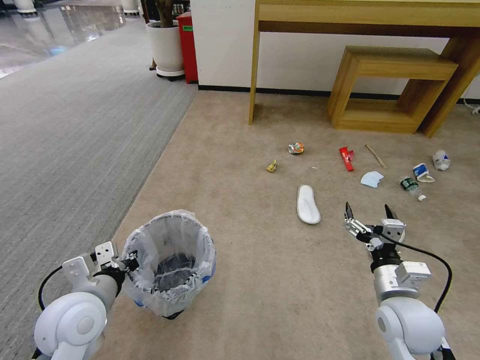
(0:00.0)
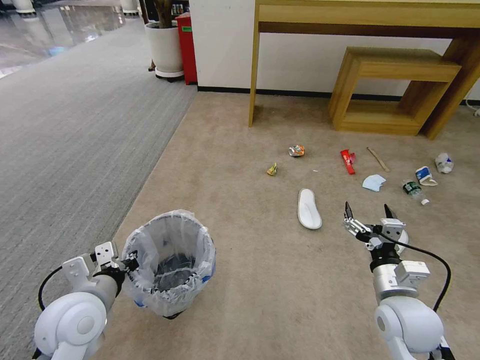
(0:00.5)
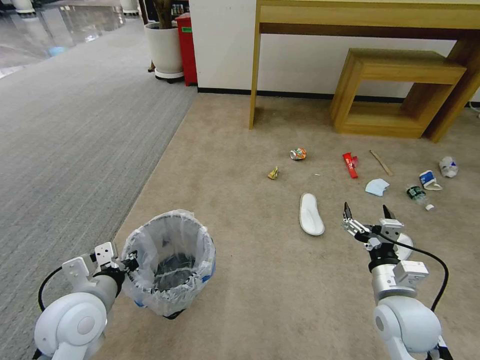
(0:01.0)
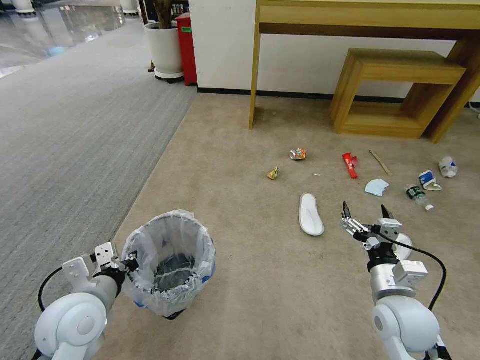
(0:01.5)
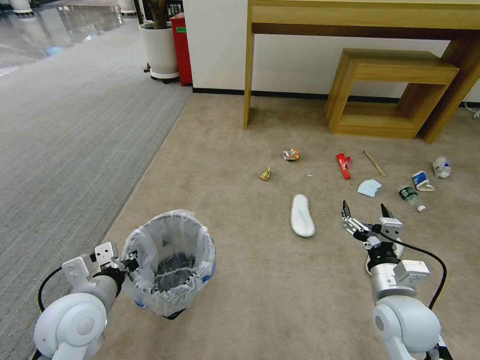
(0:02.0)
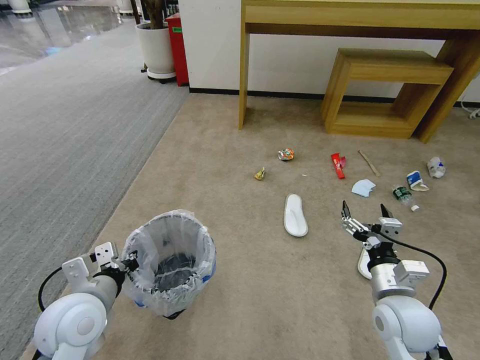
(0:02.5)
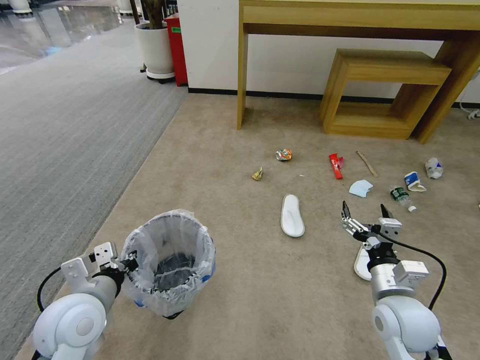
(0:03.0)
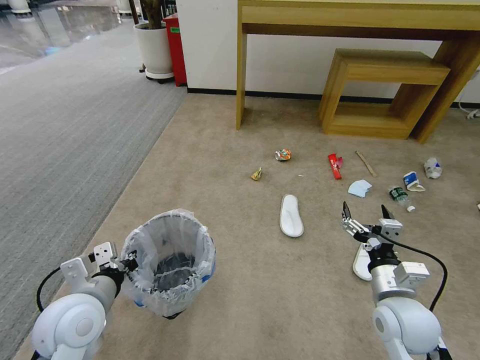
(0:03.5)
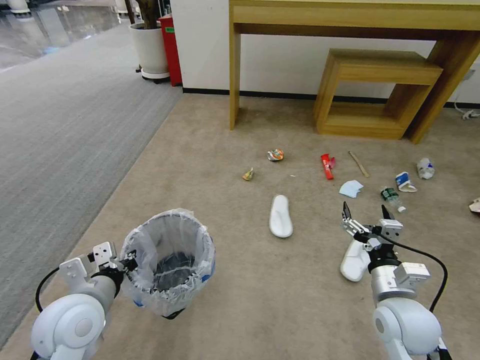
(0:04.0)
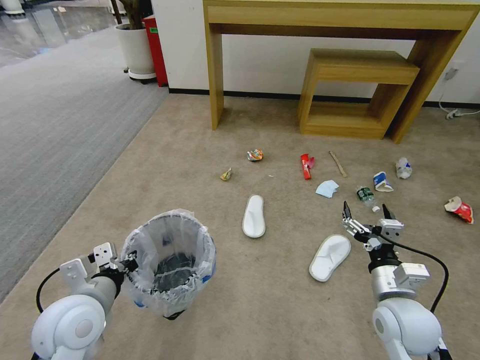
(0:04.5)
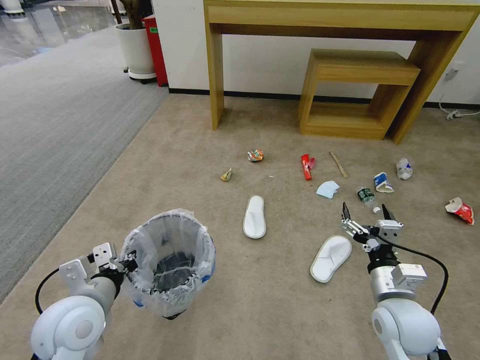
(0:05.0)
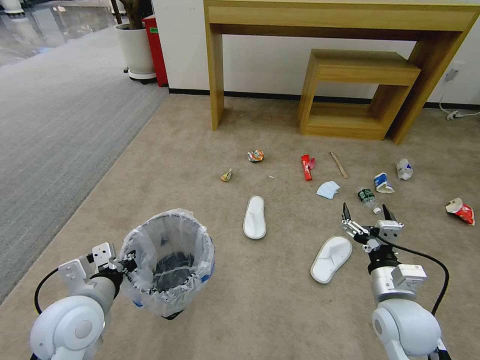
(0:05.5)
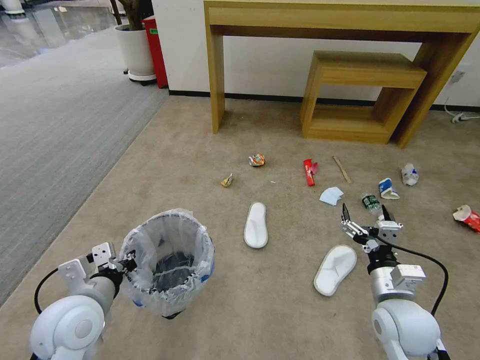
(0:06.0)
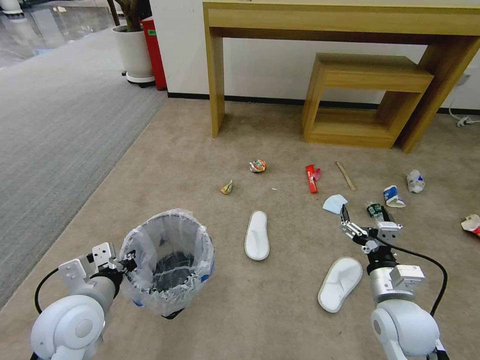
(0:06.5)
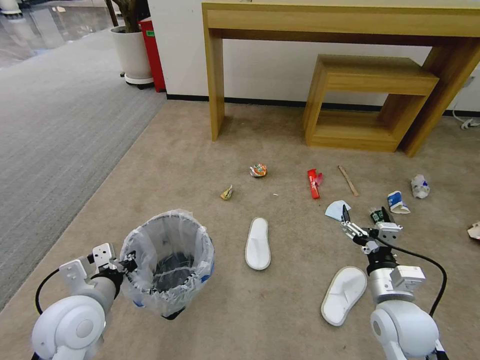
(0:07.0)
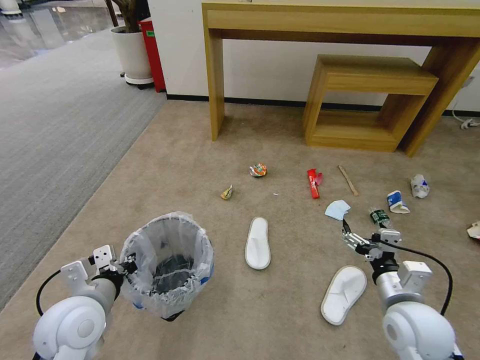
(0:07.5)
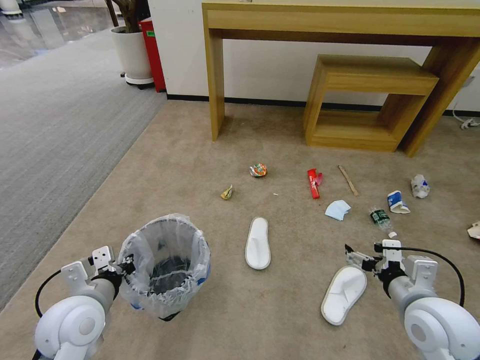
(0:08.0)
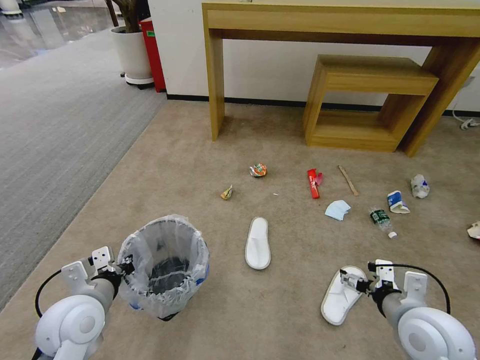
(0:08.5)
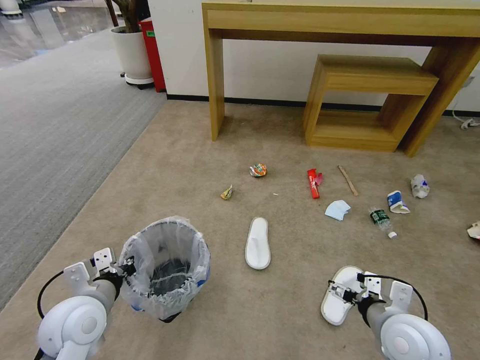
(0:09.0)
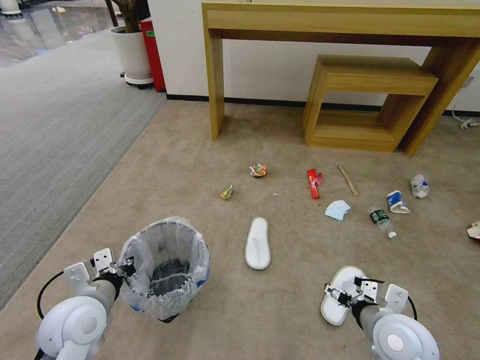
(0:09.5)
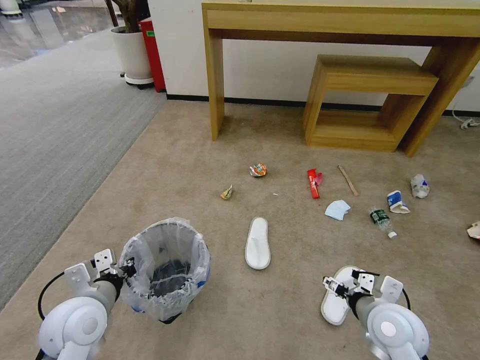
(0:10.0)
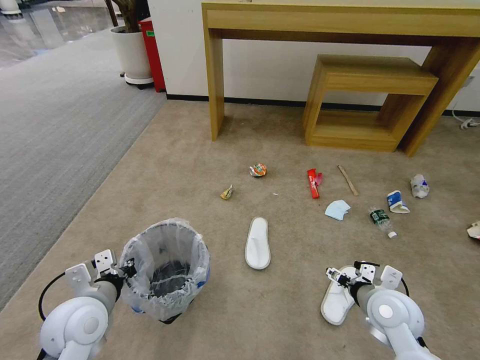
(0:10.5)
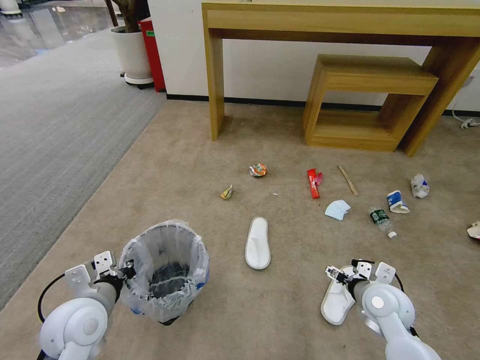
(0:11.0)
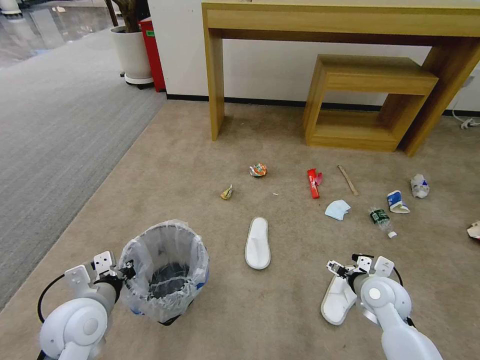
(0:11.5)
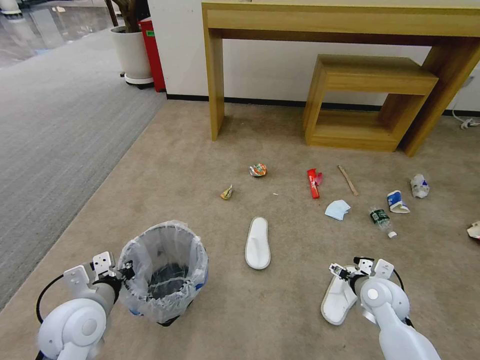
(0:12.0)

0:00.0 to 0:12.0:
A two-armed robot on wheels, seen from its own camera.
Task of the whole recording: Pick up the trash bin and place the garbage on the floor into it.
0:00.0 to 0:06.0: Both grippers stay about where they are.
0:06.0 to 0:08.0: The right gripper shifts roughly 5 cm upward.
0:08.0 to 0:10.0: The right gripper is displaced downward by approximately 5 cm.
0:10.0 to 0:12.0: The right gripper goes about 10 cm forward and downward.

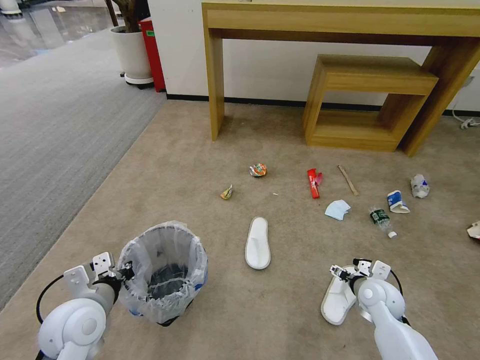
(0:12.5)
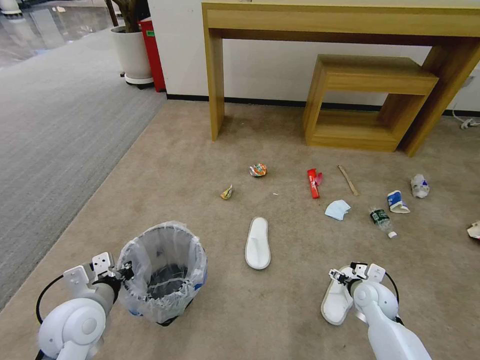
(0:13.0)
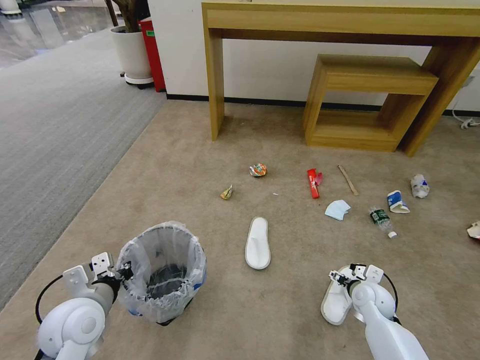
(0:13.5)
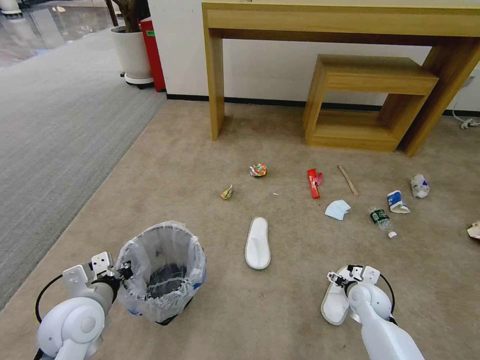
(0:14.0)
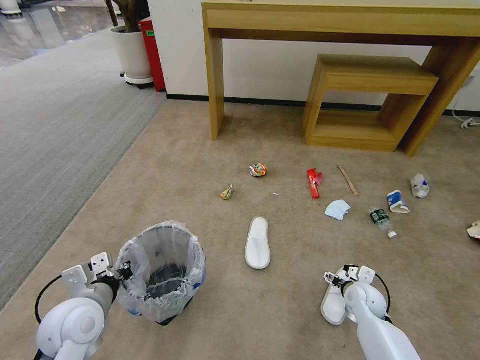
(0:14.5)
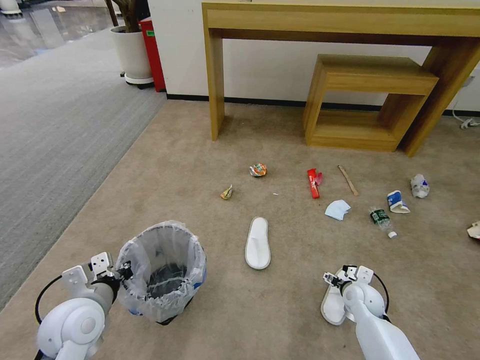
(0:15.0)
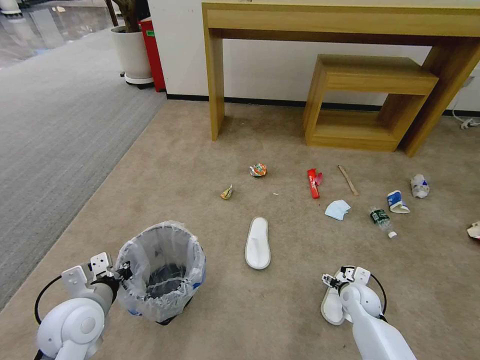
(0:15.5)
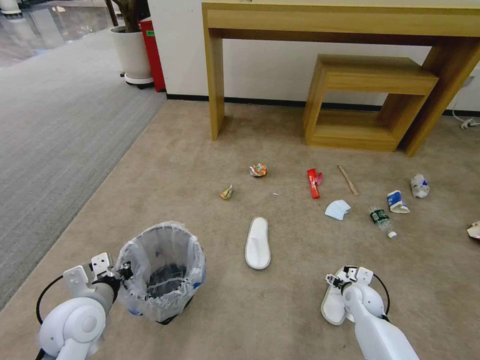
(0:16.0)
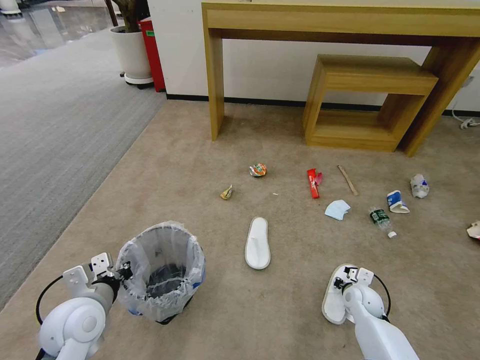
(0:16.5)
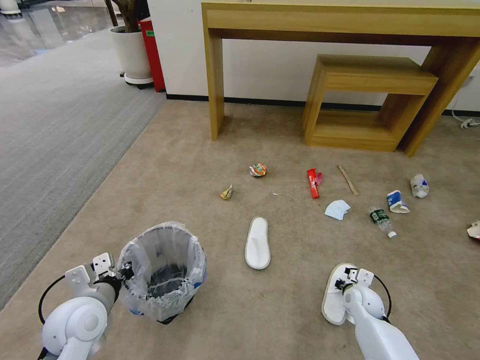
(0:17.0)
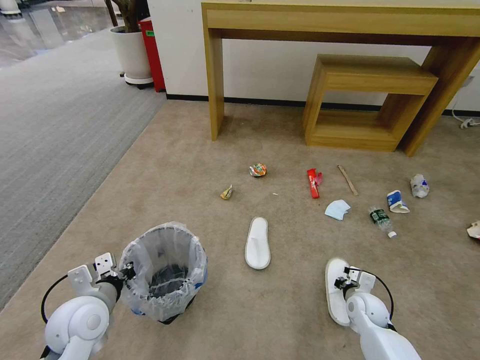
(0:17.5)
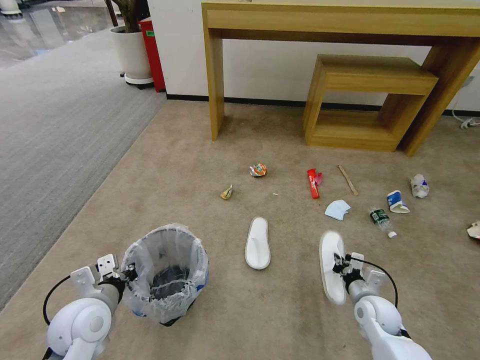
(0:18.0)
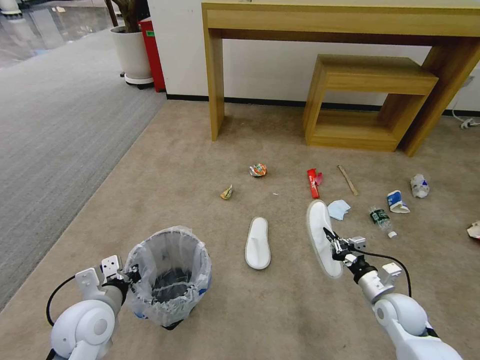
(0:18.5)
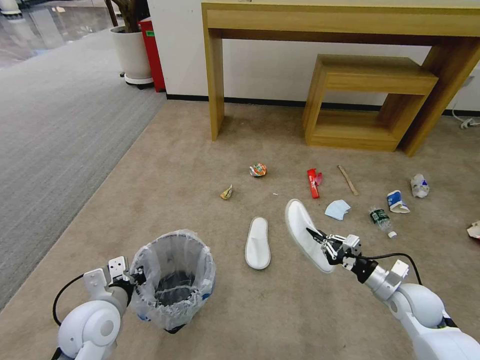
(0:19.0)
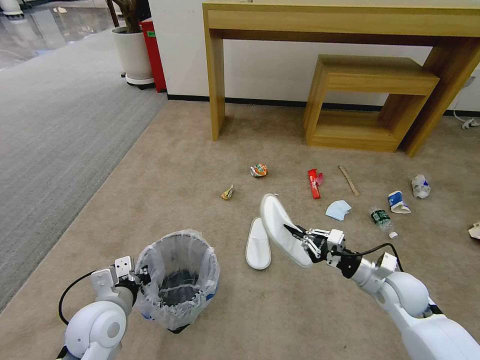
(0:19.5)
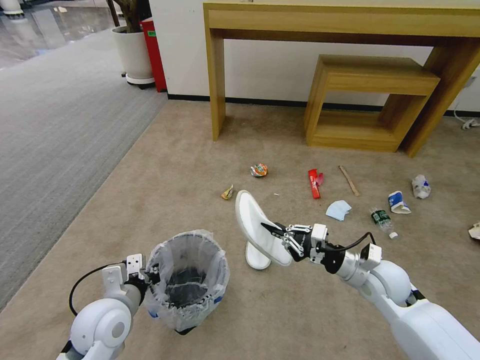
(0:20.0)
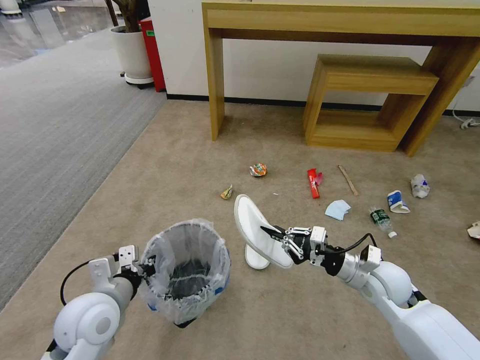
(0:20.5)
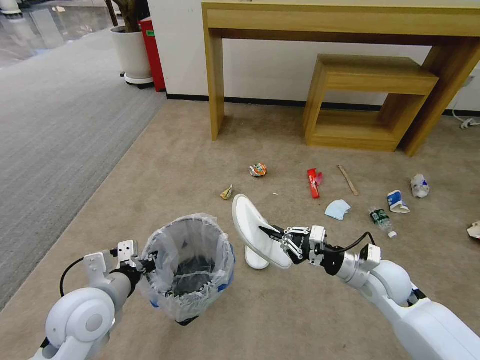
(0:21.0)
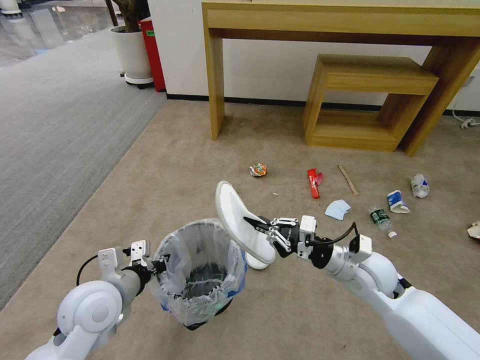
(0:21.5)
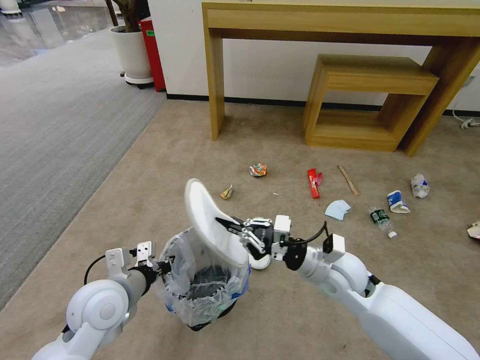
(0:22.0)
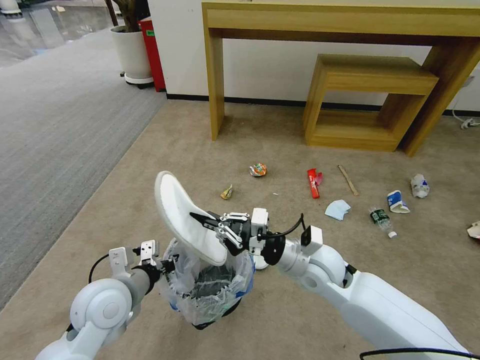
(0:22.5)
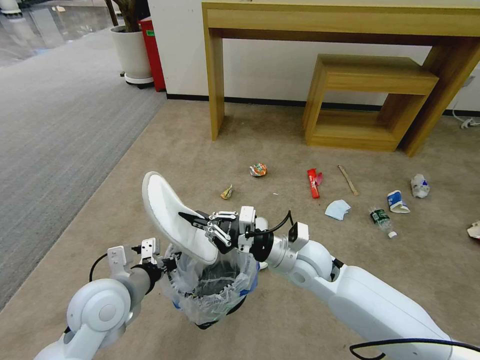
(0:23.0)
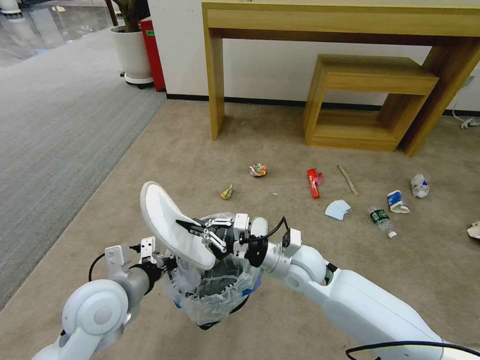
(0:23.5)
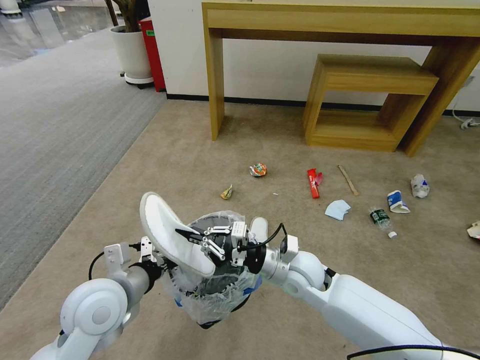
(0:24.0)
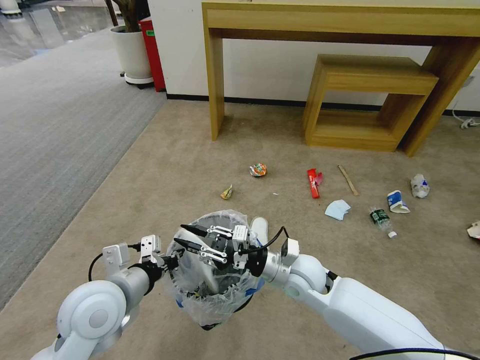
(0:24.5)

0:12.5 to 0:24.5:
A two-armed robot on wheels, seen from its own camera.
Task of the whole recording: Pick up the trash bin and place the garbage on the floor into it.
0:12.5 to 0:14.5: The right gripper is displaced downward by approximately 5 cm.
0:14.5 to 0:16.5: The right gripper closes.
0:16.5 to 0:18.5: The right gripper is displaced upward and backward by about 10 cm, and closes.
0:18.5 to 0:20.5: The right gripper heads upward and to the left, covering roughly 10 cm.
0:20.5 to 0:22.5: The right gripper heads to the left, covering some 15 cm.
0:22.5 to 0:24.5: The right gripper changes place by approximately 5 cm, and opens up.

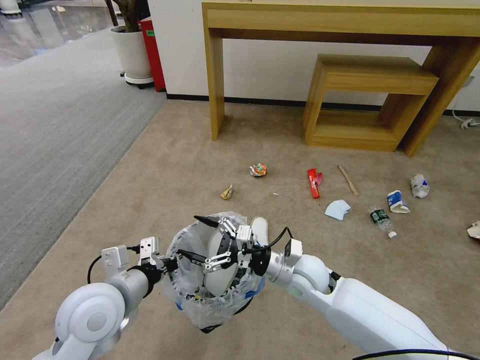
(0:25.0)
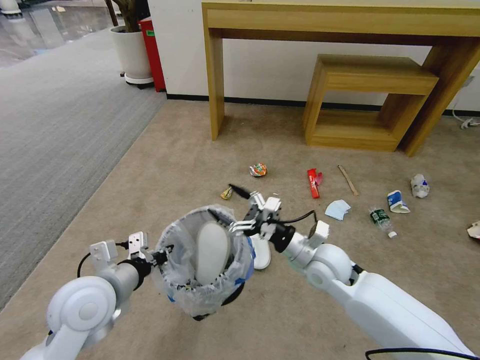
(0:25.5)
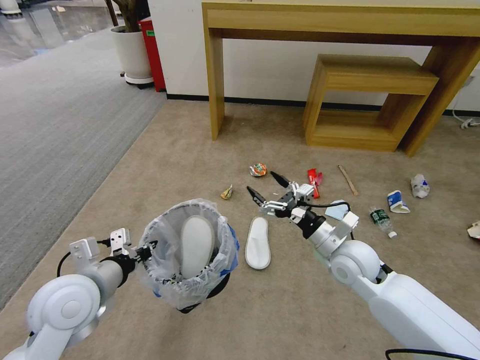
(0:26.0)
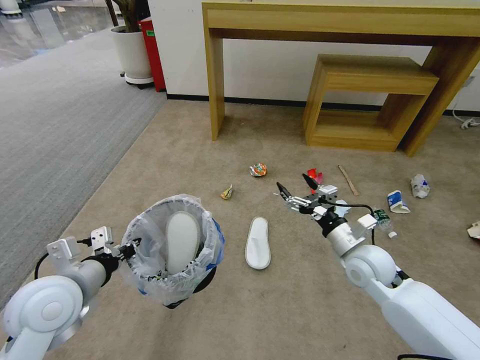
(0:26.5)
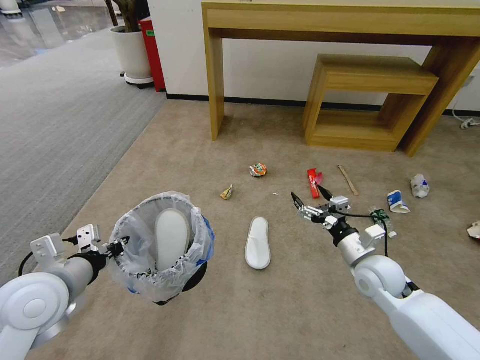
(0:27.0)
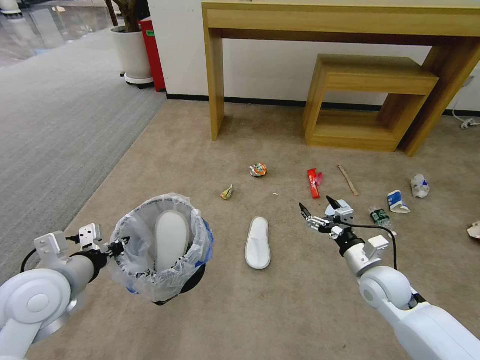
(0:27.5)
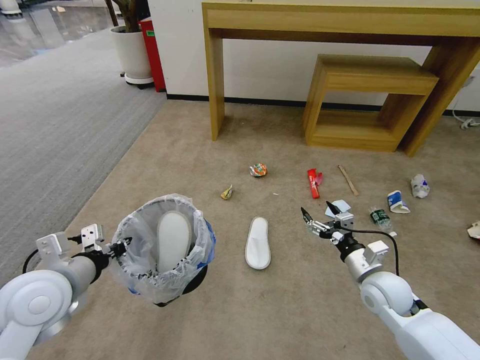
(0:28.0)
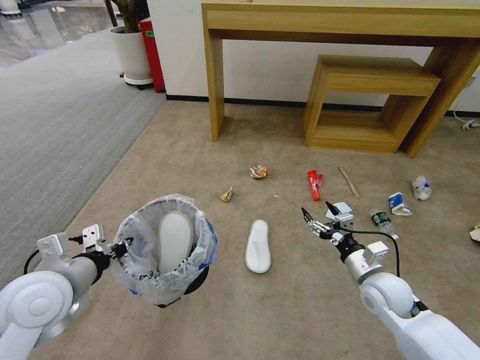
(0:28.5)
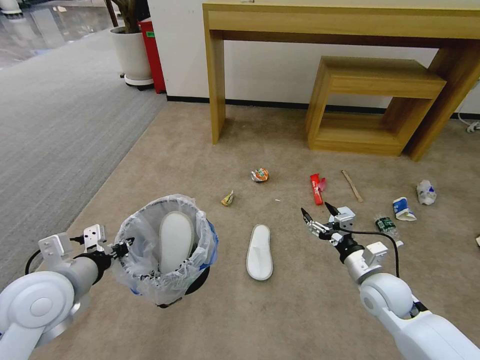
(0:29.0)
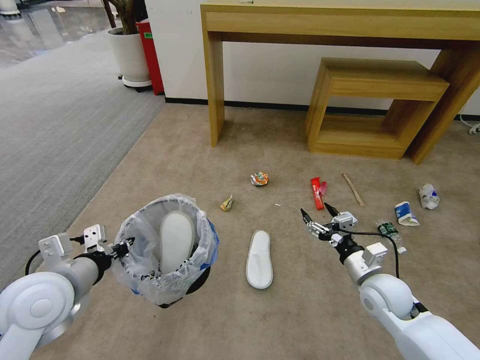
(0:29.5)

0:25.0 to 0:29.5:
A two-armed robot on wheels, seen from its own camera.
Task of the whole recording: Pick up the trash bin and place the garbage on the floor into it.
0:25.0 to 0:27.0: The right gripper travels to the right by about 15 cm. The left gripper shifts about 10 cm to the left.
0:27.0 to 0:29.5: The grippers make only small movements.
